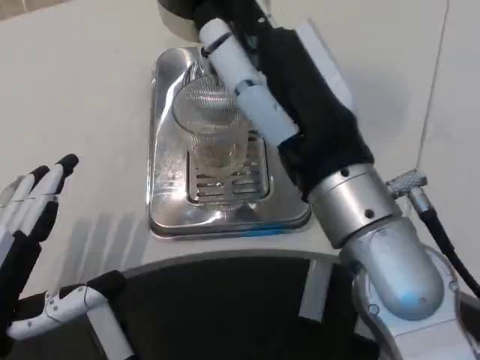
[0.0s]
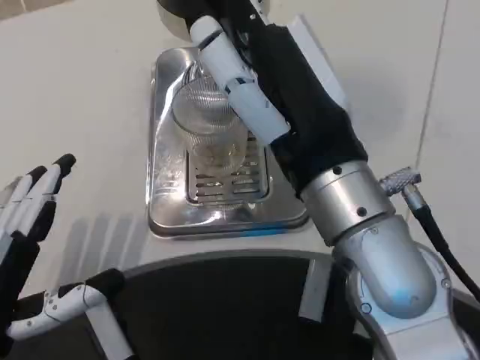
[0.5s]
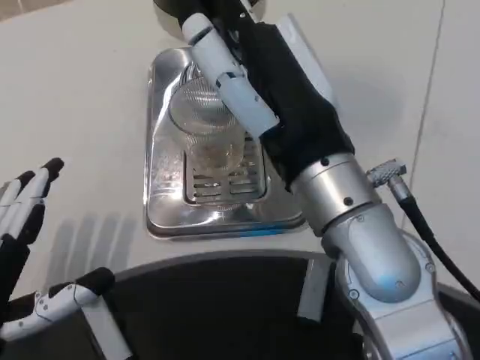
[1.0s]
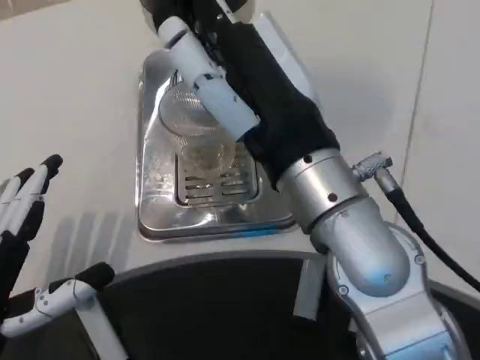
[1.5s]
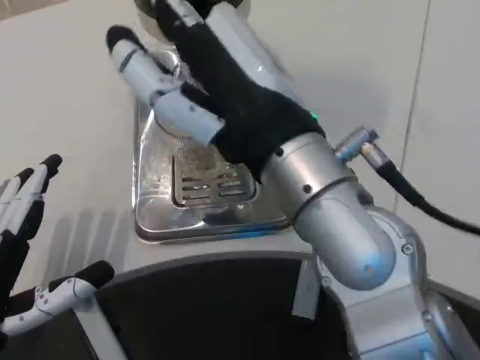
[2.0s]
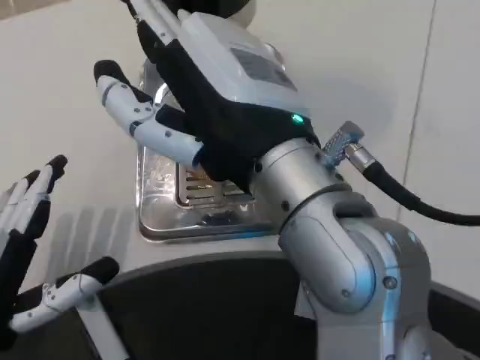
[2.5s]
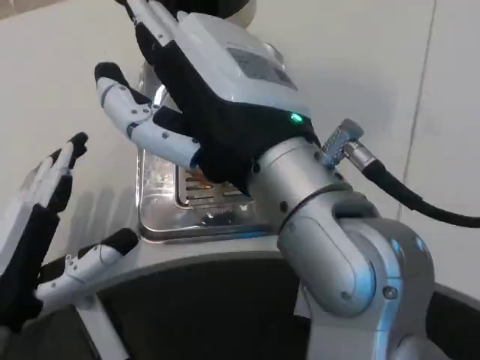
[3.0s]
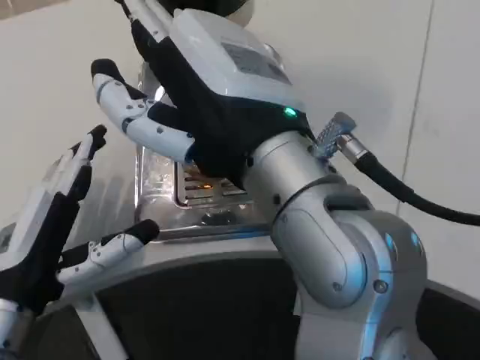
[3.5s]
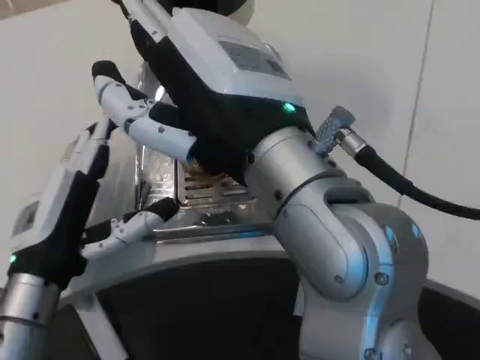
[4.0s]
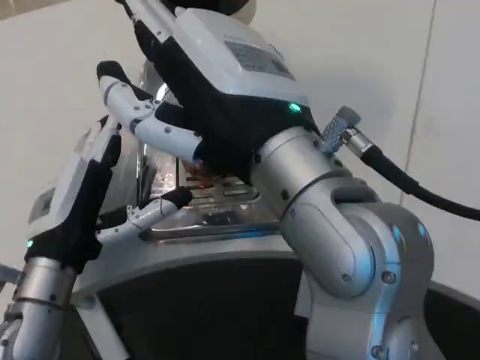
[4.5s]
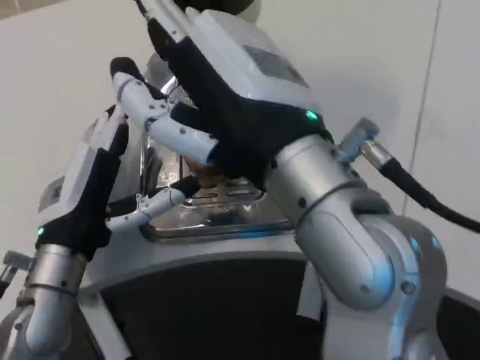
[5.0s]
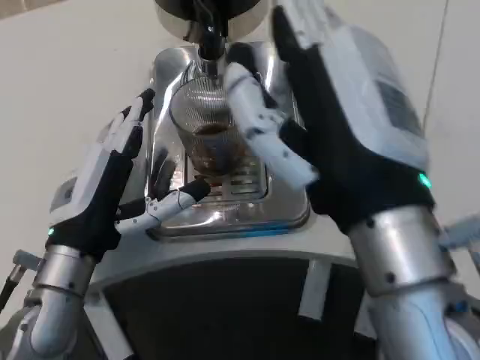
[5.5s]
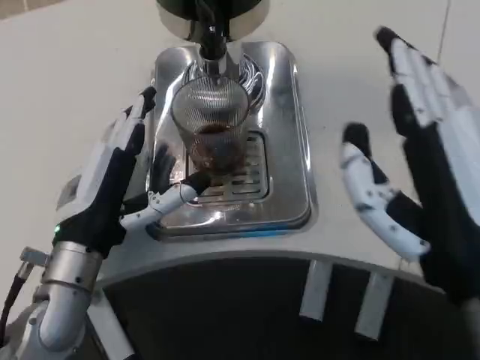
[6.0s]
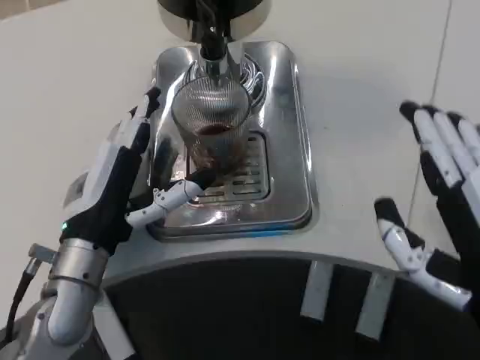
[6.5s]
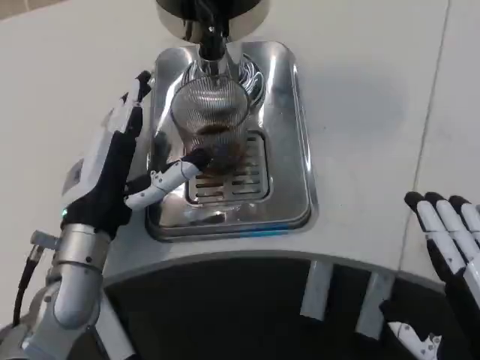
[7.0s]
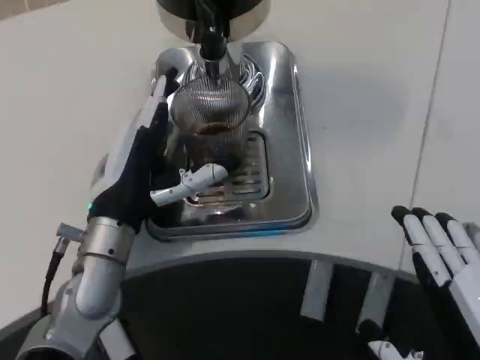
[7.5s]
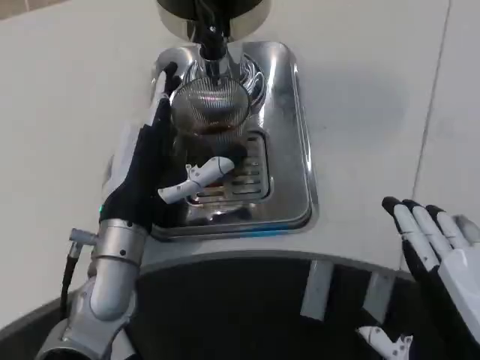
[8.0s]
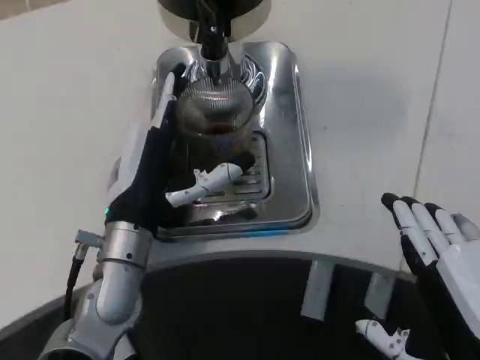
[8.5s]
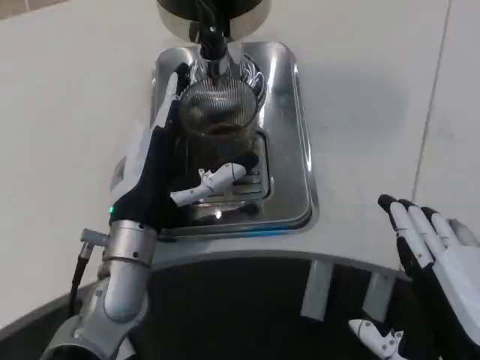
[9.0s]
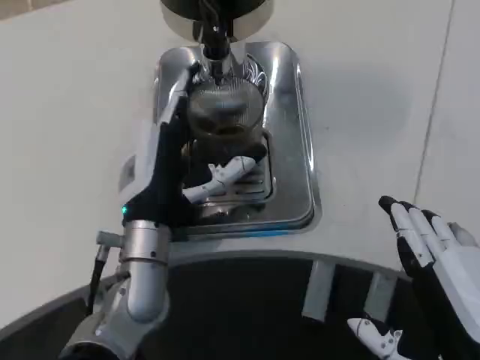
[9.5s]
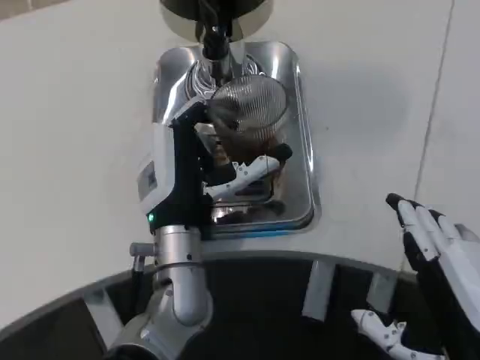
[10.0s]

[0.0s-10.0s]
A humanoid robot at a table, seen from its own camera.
Task of the whole recording: Grasp the cup under the faucet to collect the drink, then remove the cup.
2.0s to 4.0s: The left hand travels forward by some 10 cm.
4.0s to 6.0s: The right hand is displaced to the right, downward and backward by some 15 cm.
6.0s to 8.0s: The left hand ends up about 5 cm from where it was. Meanwhile the right hand heads downward, covering some 5 cm.
8.0s to 10.0s: The left hand is displaced to the right by roughly 5 cm.

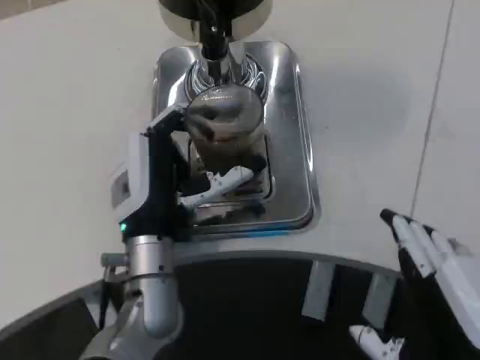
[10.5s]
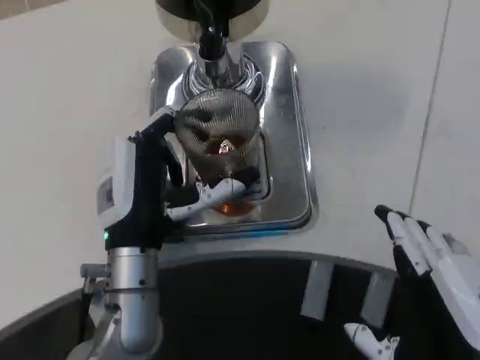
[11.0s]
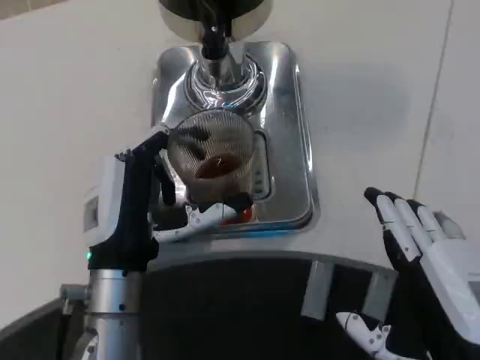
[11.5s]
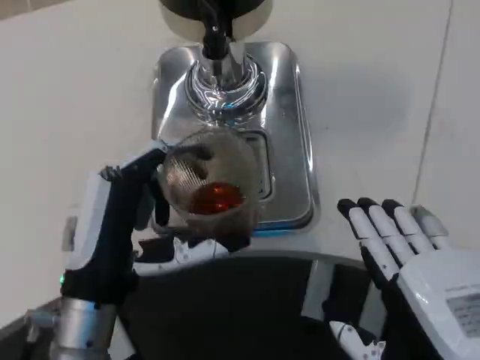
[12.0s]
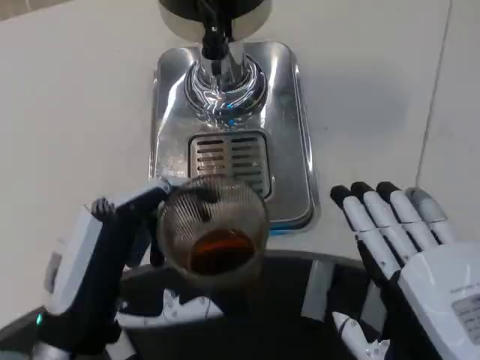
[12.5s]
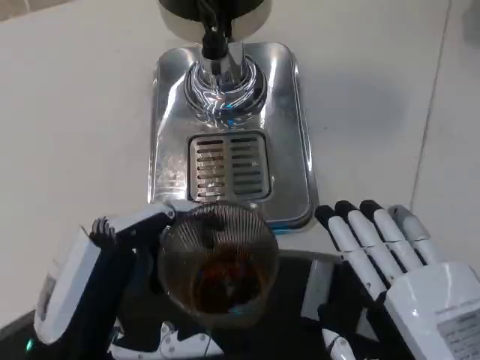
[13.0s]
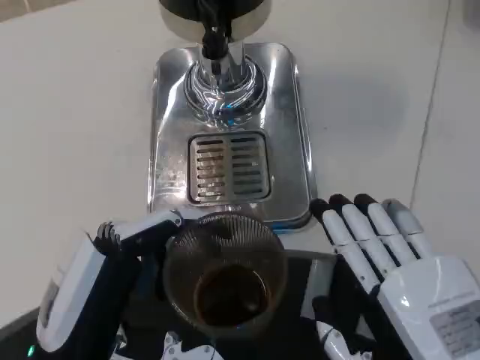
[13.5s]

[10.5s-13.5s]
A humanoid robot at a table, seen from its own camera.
Task of the whole recording: Grasp the cup under the faucet to collect the drink, then remove the cup.
10.5s to 12.0s: The left hand is displaced backward and to the left by roughly 10 cm.
12.0s to 13.5s: The left hand shifts roughly 5 cm backward.

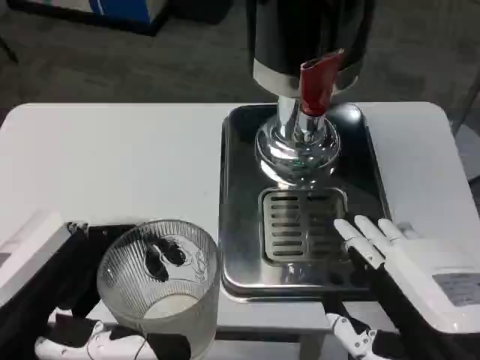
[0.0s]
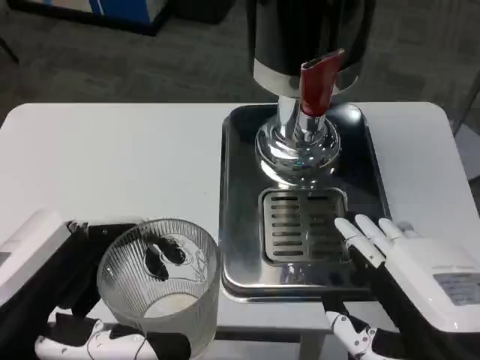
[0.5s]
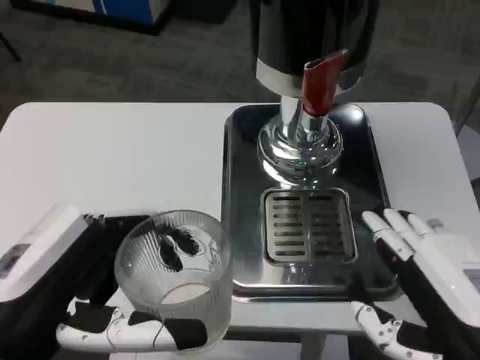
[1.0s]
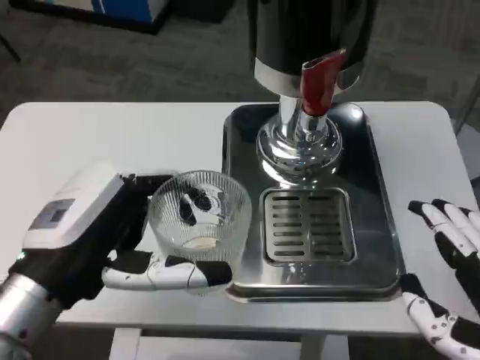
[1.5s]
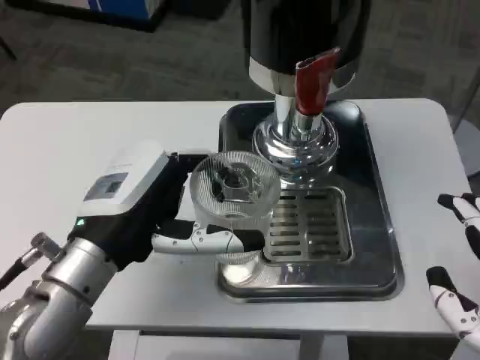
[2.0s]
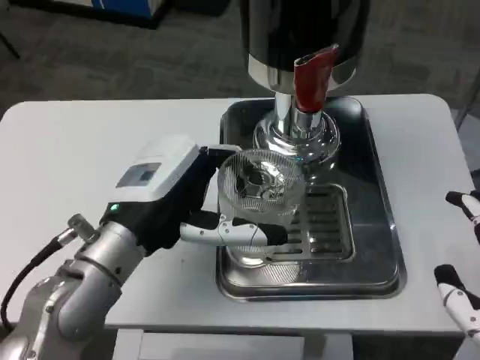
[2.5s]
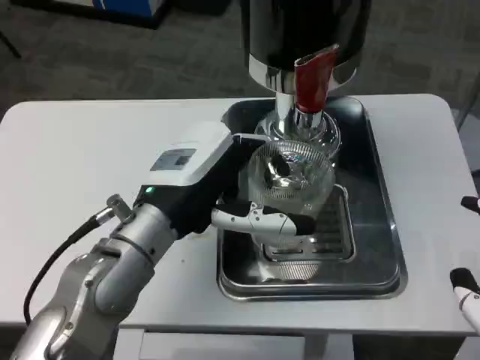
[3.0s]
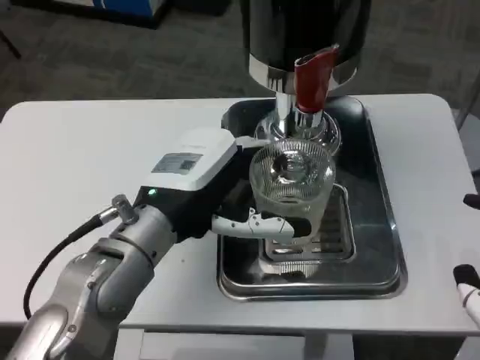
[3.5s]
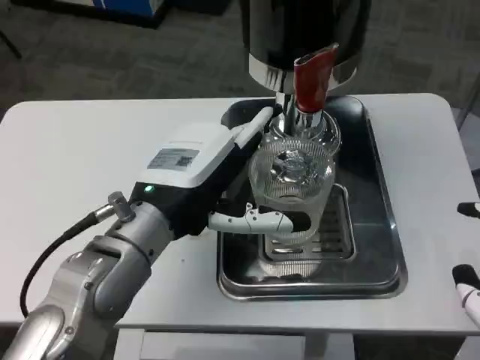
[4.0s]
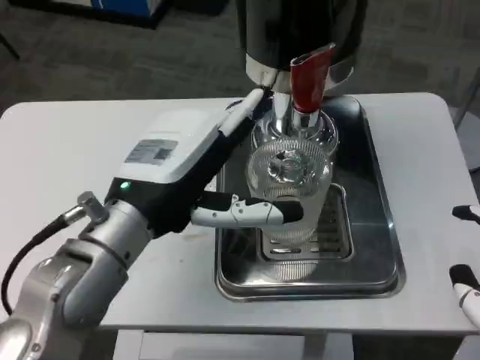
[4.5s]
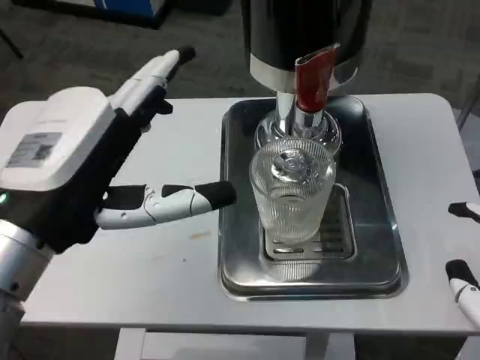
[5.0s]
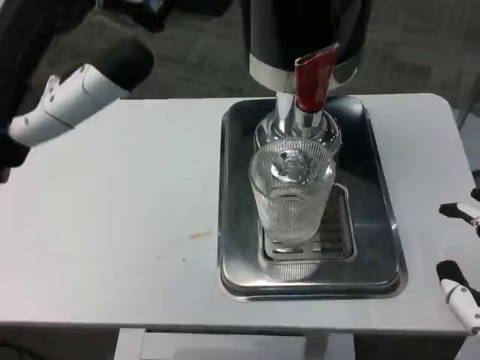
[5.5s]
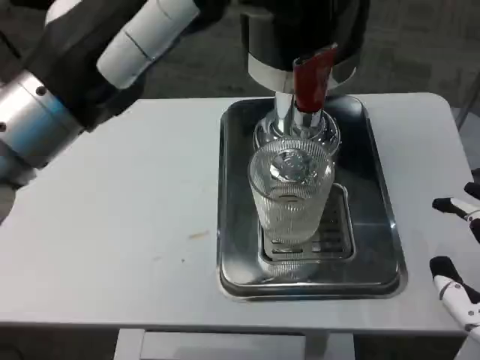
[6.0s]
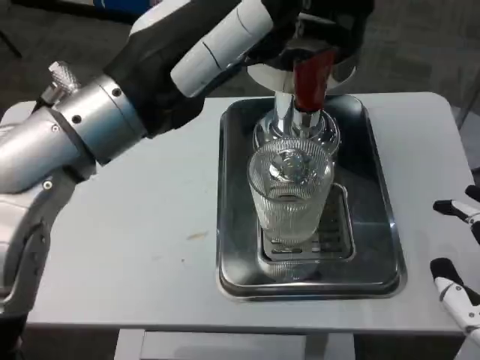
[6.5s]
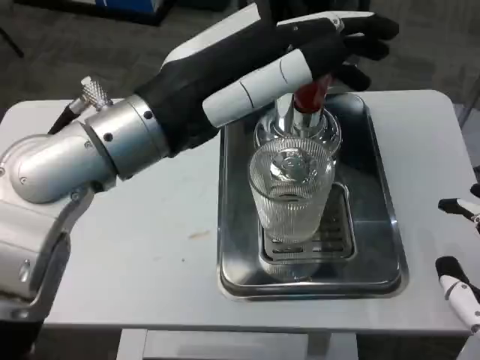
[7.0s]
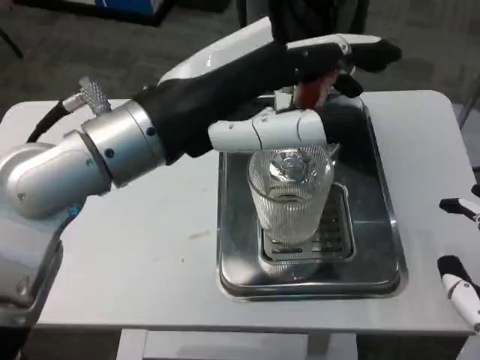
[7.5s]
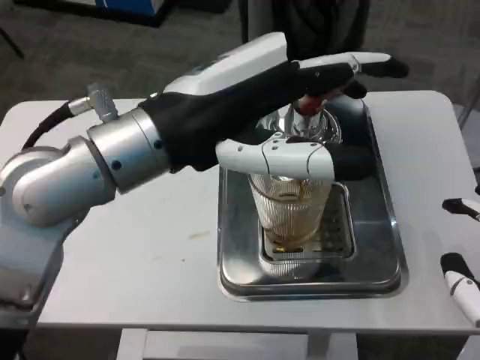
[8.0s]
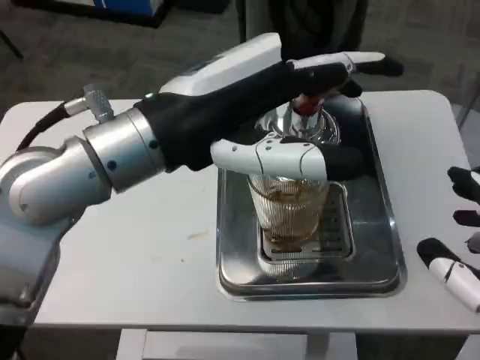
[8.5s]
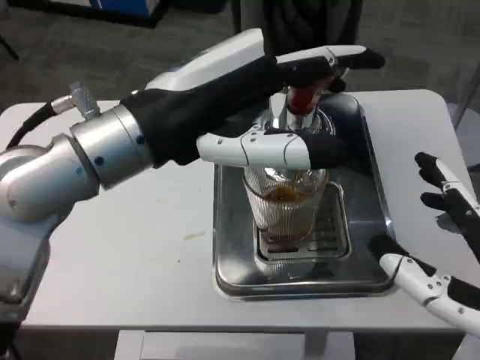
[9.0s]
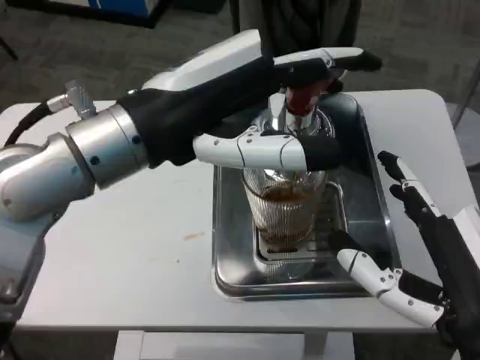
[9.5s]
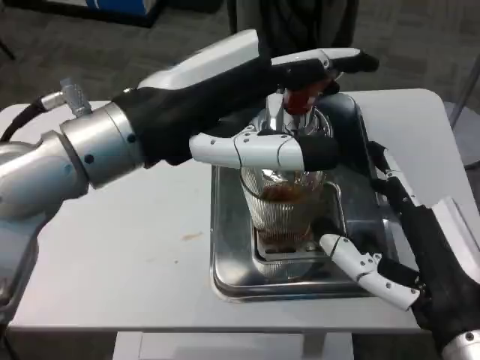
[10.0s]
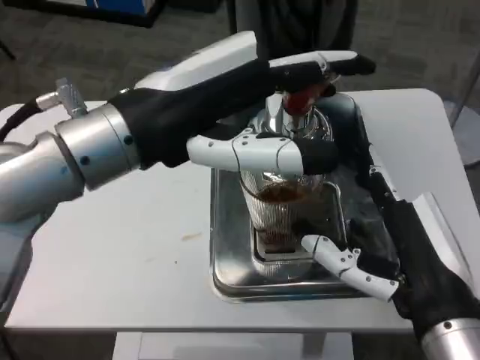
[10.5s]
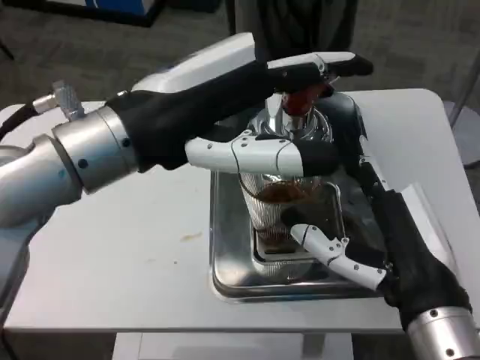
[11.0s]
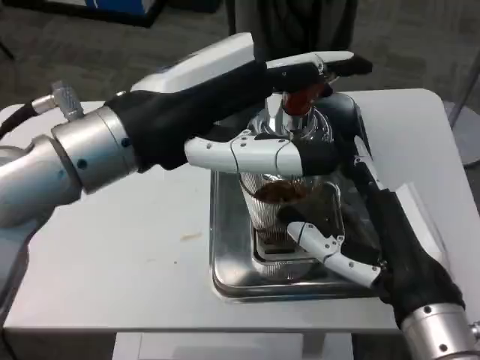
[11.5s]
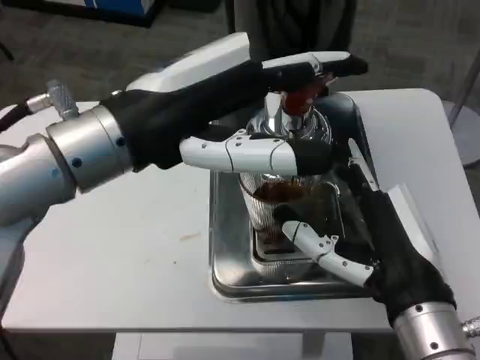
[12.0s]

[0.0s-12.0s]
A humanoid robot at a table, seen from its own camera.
Task of the whole recording: Grasp the cup under the faucet to collect the drink, then remove the cup.
0.0s to 2.0s: The left hand moves forward and to the right, about 15 cm, while the right hand shifts by approximately 5 cm.
2.0s to 4.0s: The left hand ends up some 5 cm from where it was.
4.0s to 6.0s: The left hand shifts about 15 cm upward.
8.0s to 10.0s: The right hand heads to the left and forward, covering approximately 10 cm.
